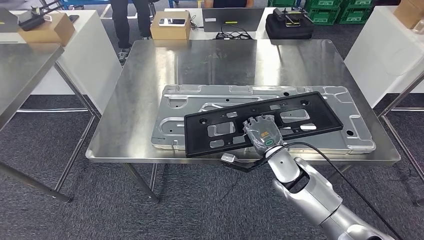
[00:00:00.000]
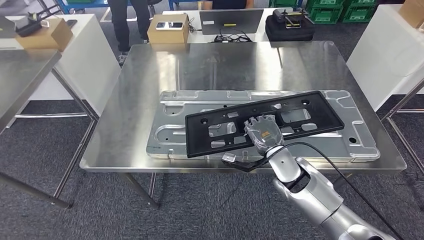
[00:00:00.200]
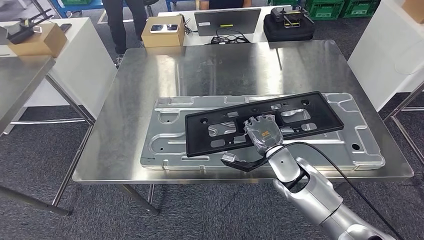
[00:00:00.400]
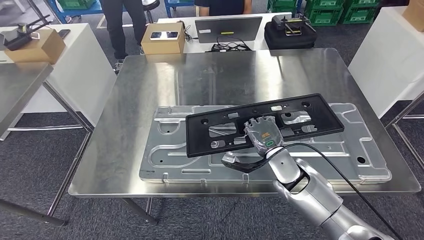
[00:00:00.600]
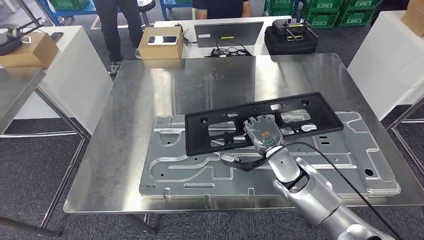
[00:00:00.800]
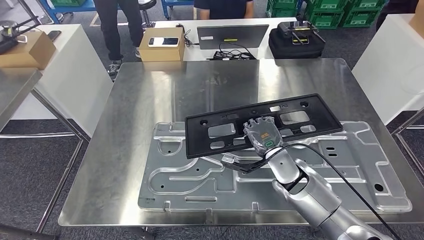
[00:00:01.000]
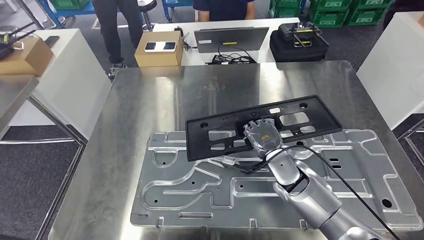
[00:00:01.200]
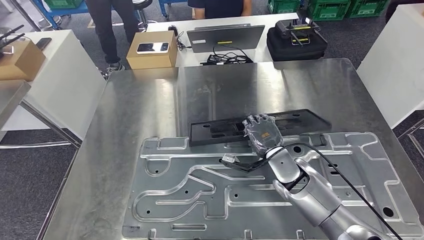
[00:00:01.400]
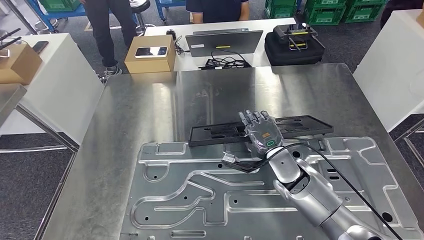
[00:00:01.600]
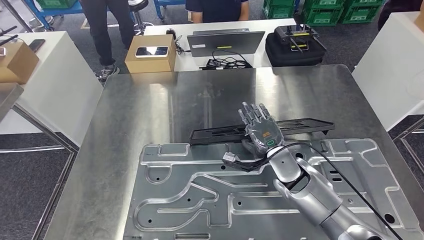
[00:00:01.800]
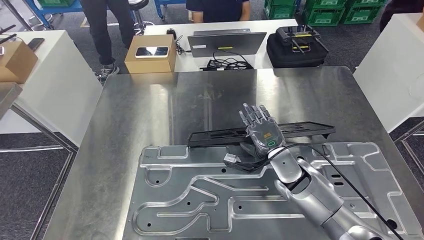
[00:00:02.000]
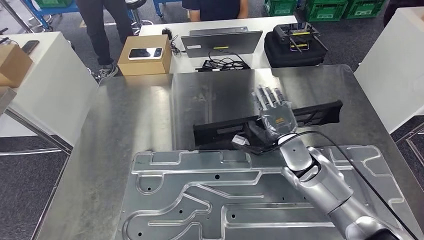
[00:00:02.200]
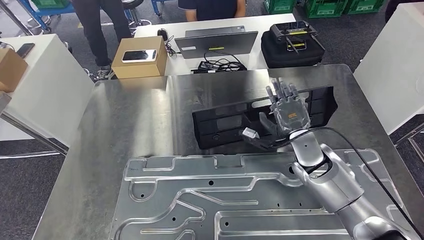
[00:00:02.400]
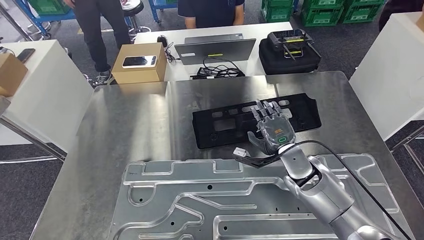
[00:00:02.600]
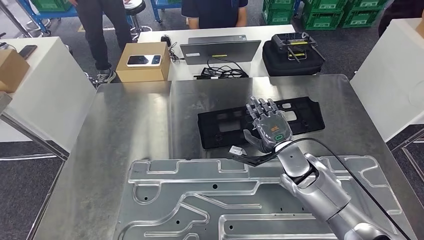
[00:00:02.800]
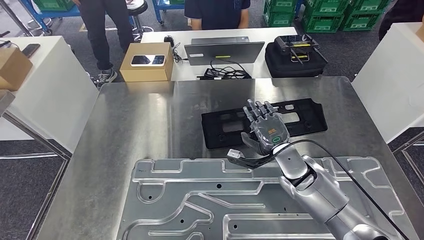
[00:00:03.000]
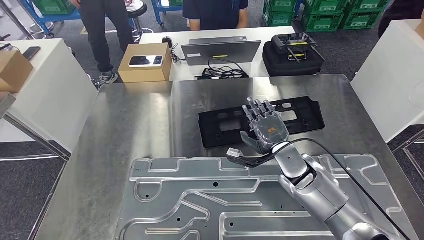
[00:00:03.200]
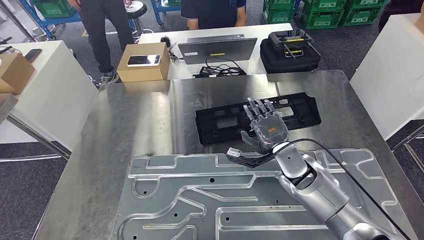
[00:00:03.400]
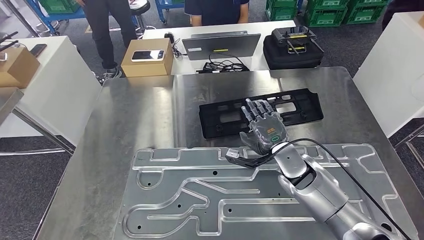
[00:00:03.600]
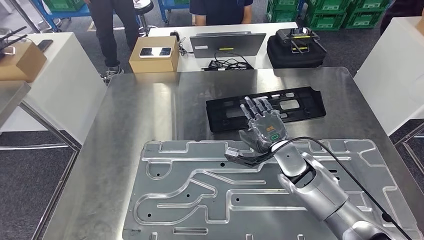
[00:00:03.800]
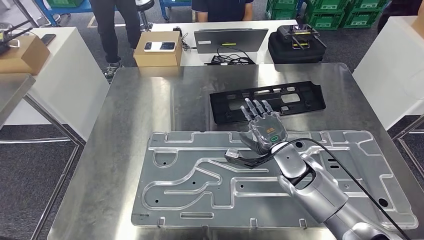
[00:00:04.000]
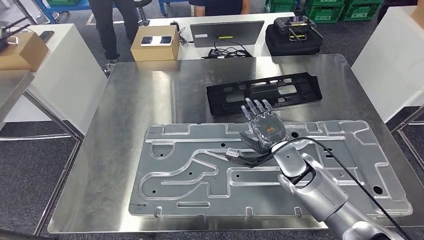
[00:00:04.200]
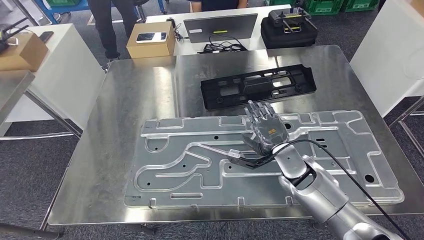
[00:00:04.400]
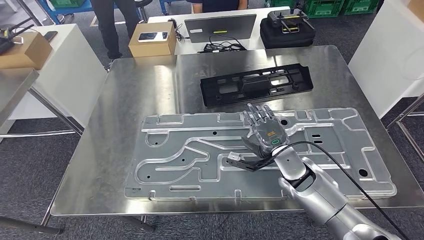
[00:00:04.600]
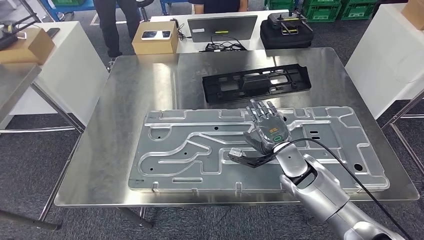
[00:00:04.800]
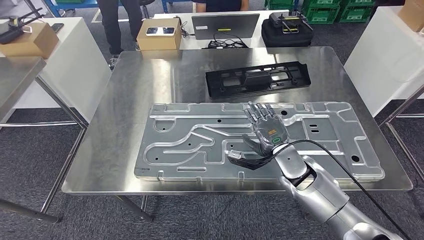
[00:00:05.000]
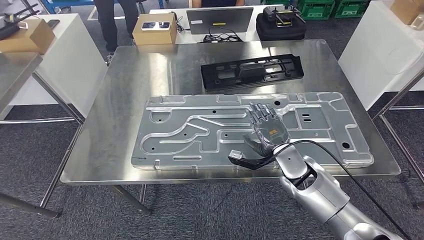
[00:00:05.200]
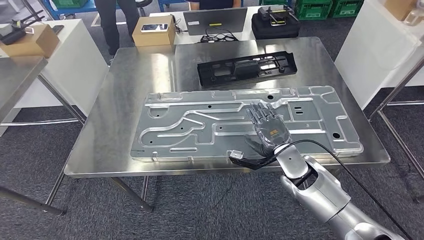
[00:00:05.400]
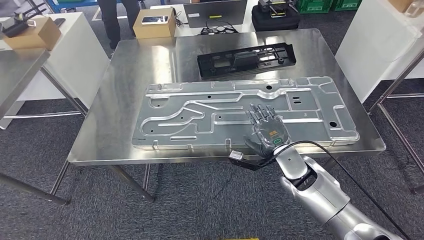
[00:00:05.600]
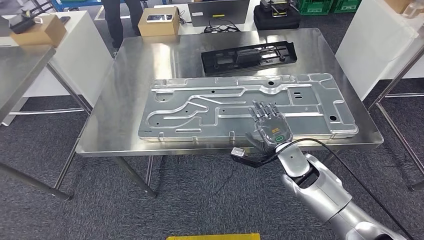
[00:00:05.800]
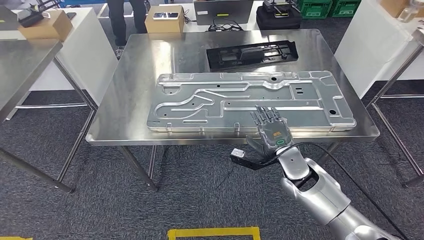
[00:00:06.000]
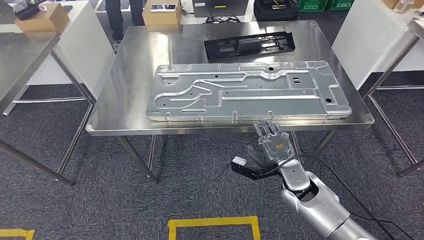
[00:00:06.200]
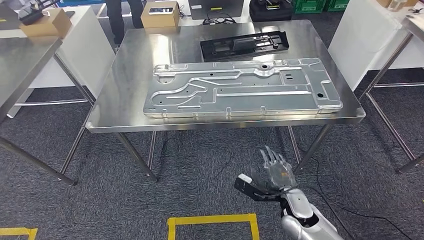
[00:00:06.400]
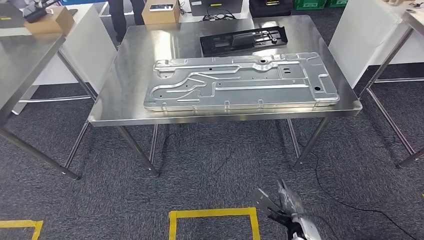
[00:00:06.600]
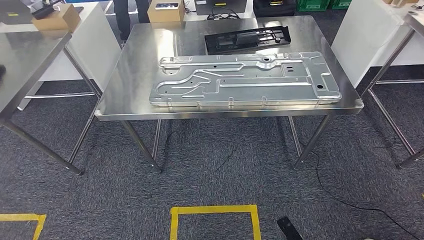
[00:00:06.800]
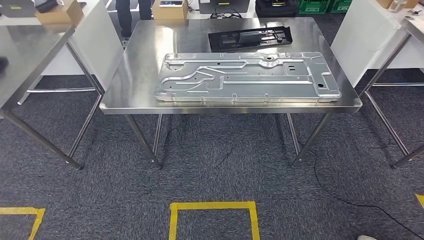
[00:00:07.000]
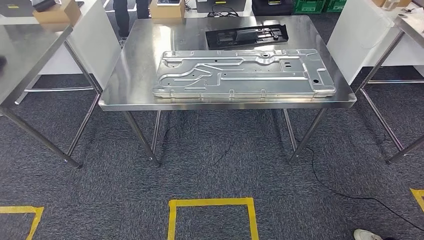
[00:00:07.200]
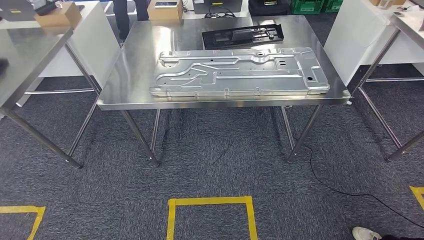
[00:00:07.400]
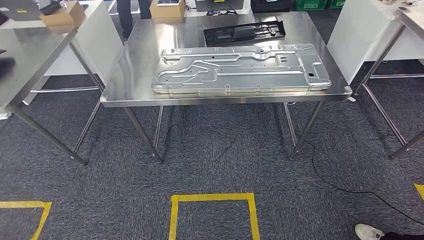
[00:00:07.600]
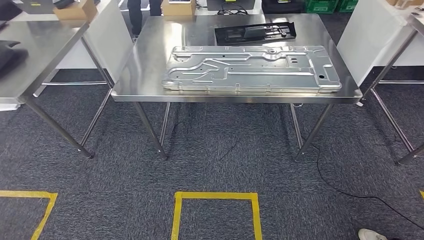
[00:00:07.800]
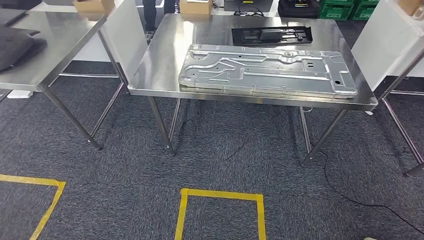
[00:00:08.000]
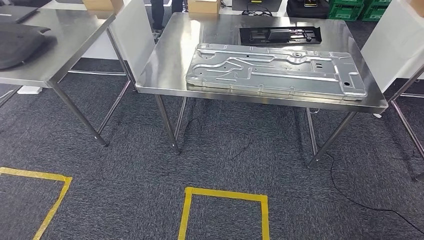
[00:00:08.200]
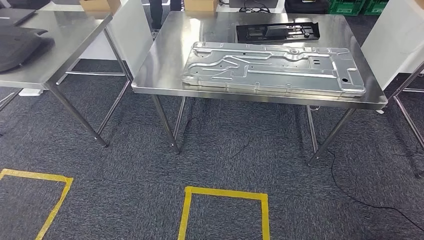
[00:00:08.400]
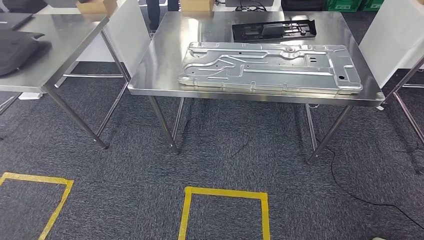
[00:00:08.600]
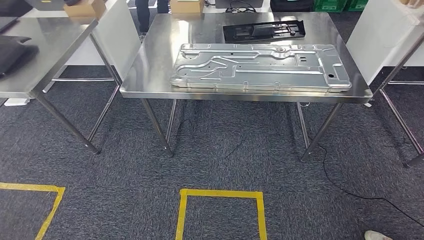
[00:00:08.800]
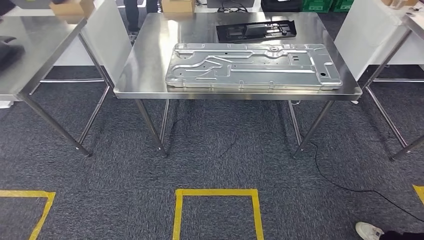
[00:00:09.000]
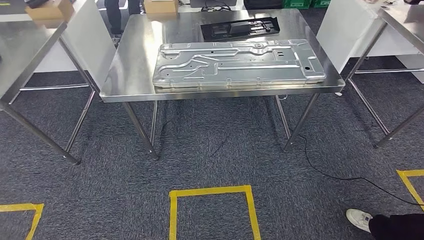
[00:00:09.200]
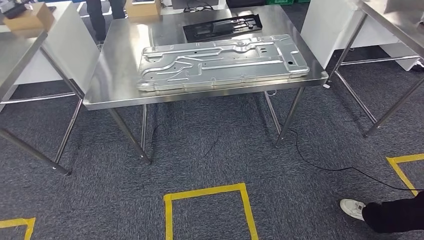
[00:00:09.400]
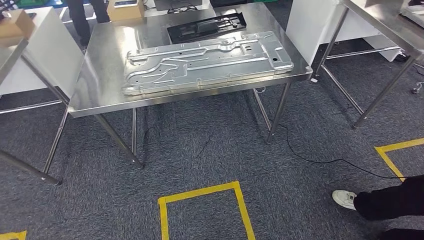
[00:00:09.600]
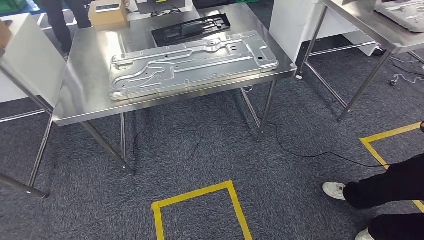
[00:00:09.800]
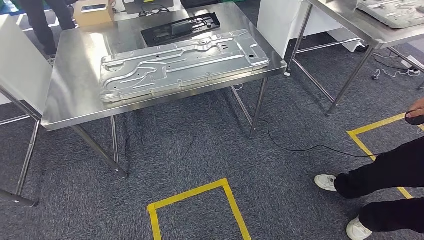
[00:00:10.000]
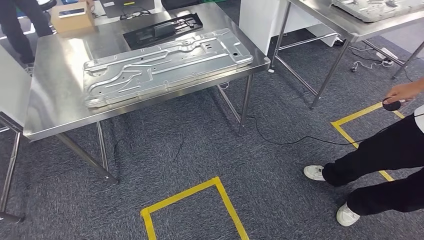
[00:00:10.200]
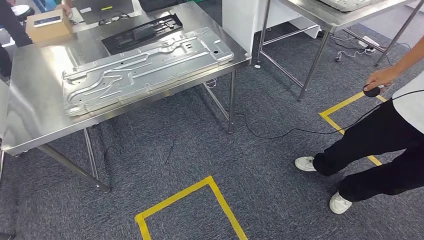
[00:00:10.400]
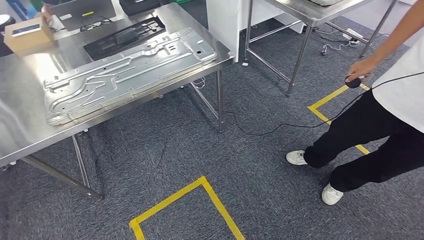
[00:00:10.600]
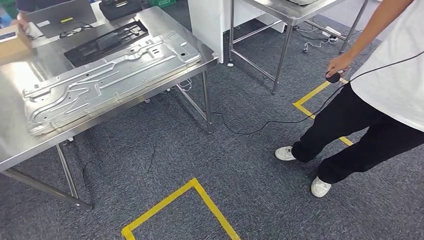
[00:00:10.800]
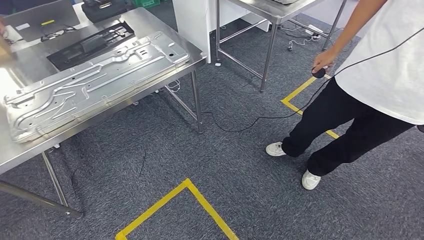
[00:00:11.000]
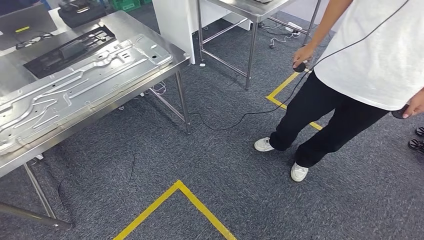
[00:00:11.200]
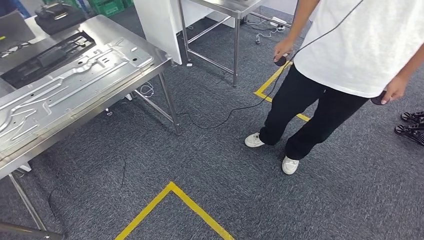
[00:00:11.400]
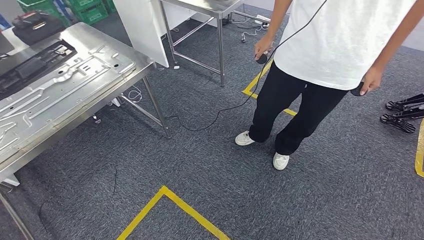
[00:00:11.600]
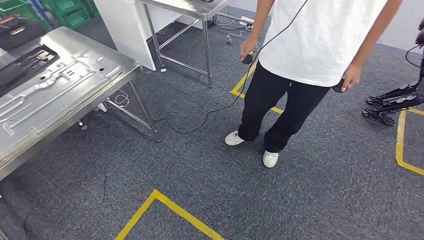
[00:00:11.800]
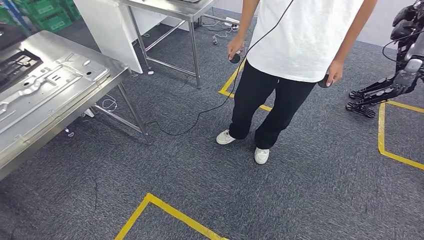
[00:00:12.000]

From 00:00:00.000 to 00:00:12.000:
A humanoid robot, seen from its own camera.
Step, from 00:00:00.000 to 00:00:05.800: Insert the large material into the corresponding slot on the workbench.

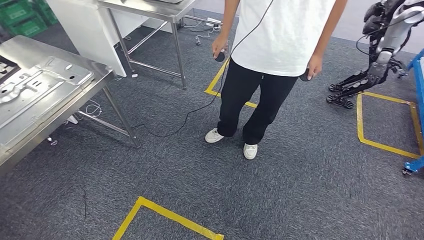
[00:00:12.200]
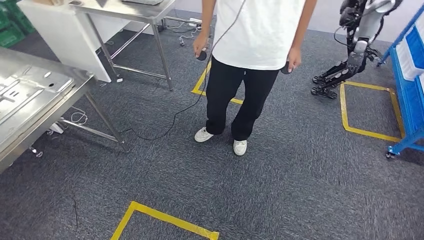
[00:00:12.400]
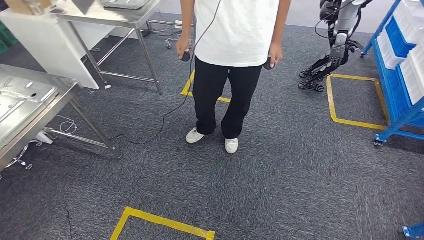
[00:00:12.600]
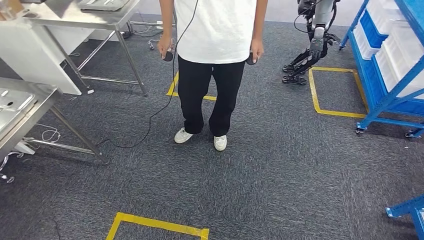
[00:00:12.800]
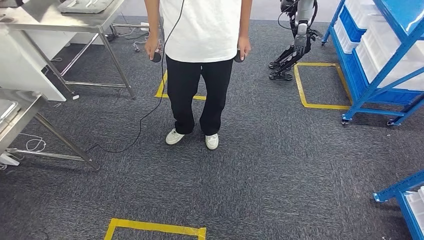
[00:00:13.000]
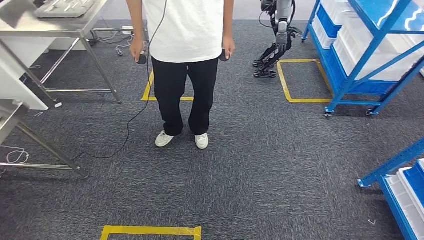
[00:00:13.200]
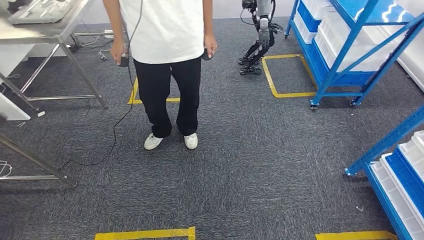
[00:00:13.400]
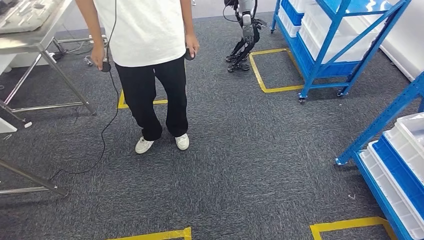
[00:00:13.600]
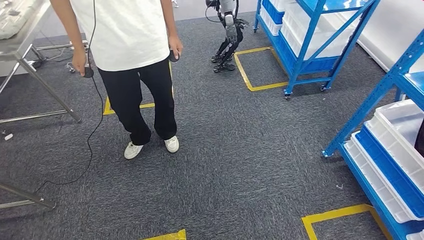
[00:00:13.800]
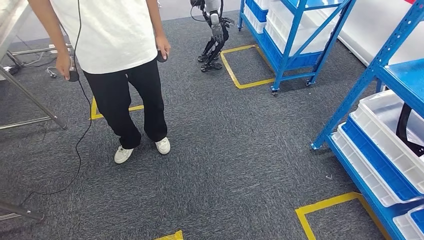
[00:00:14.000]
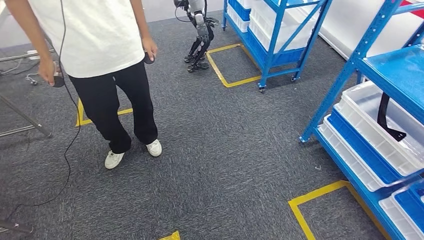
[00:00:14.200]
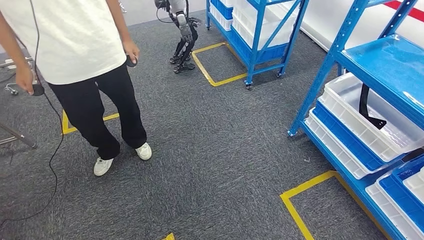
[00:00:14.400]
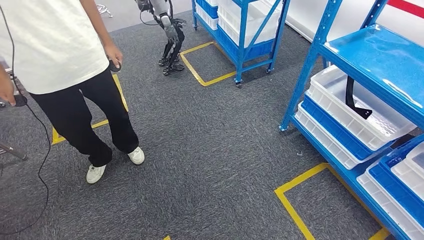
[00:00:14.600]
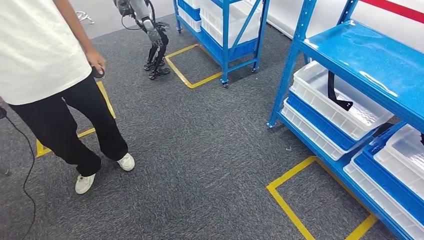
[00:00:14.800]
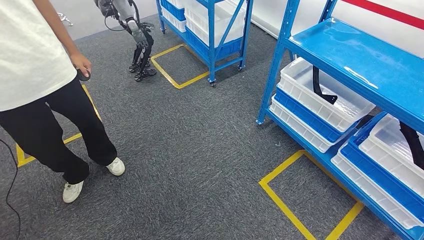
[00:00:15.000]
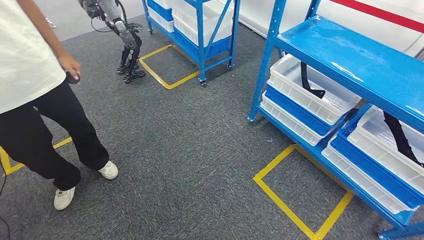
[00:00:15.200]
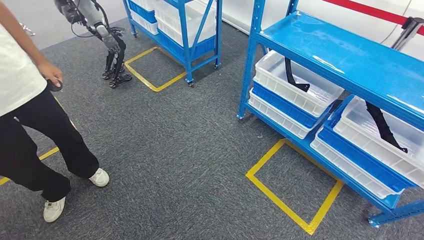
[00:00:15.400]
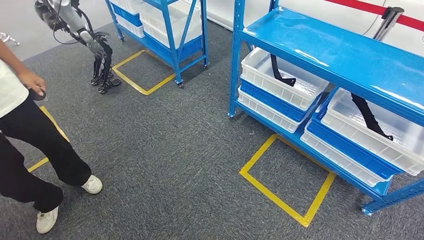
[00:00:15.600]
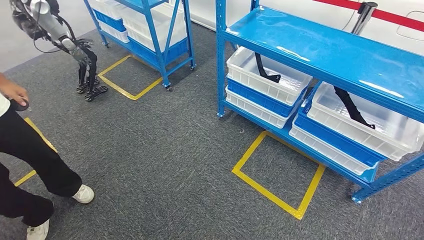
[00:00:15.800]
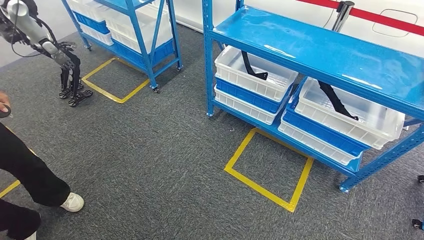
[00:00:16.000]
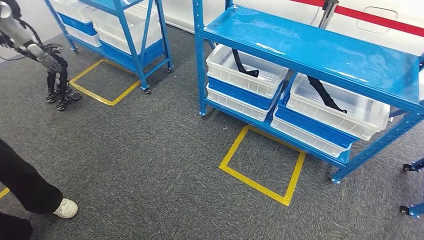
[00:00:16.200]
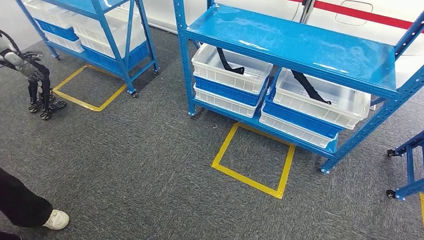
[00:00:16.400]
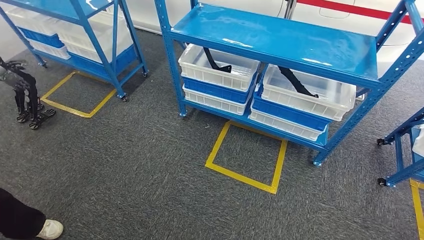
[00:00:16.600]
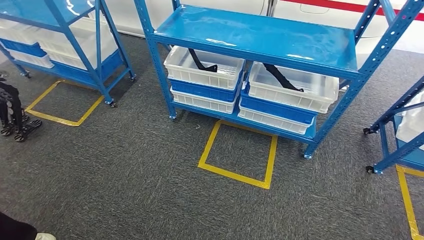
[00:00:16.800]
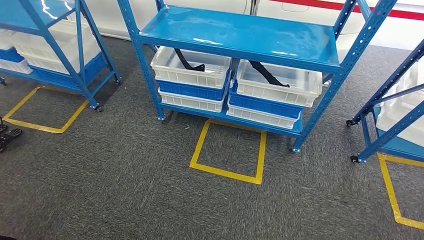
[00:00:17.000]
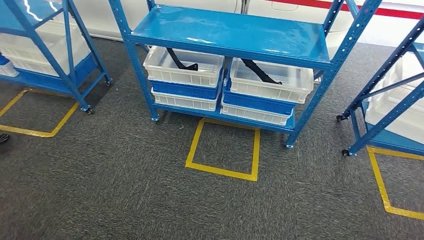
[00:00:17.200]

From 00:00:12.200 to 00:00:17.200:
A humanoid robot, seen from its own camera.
Step, from 00:00:12.200 to 00:00:17.200: Move to the initial position of the shelf.
